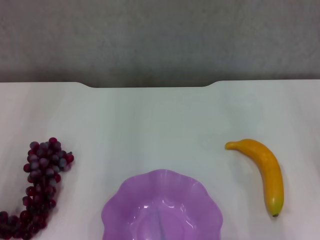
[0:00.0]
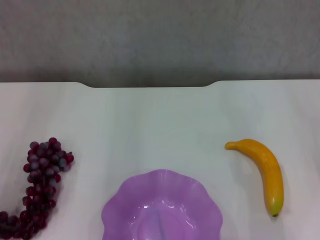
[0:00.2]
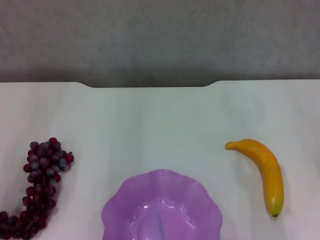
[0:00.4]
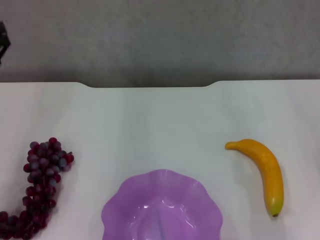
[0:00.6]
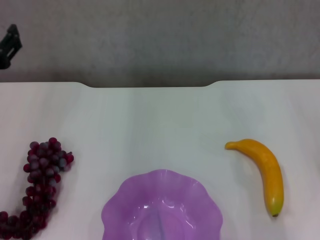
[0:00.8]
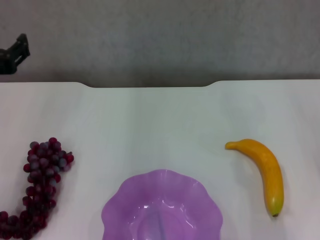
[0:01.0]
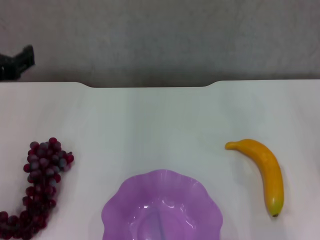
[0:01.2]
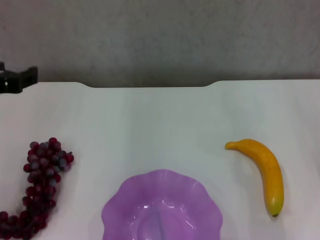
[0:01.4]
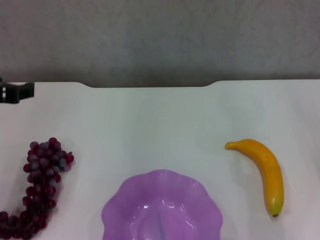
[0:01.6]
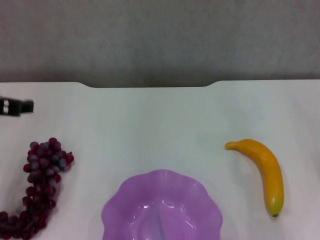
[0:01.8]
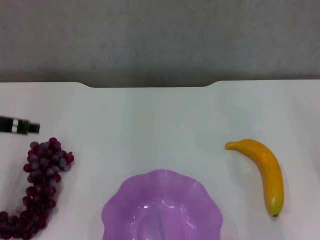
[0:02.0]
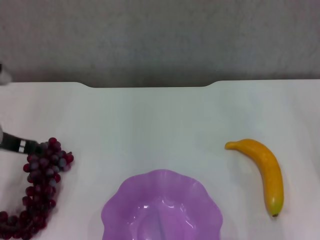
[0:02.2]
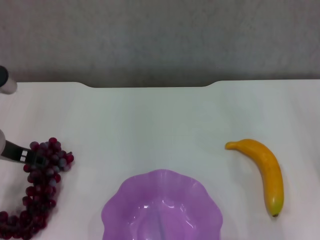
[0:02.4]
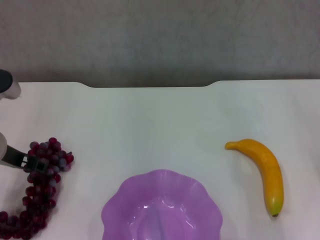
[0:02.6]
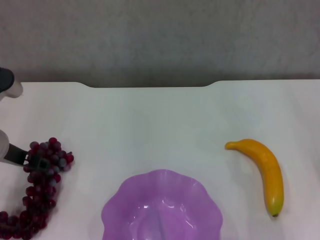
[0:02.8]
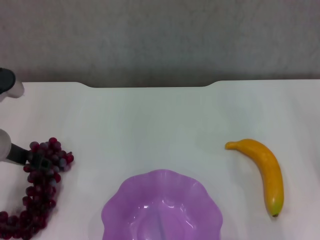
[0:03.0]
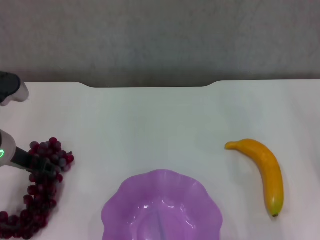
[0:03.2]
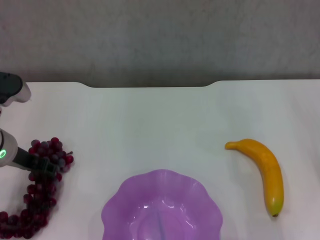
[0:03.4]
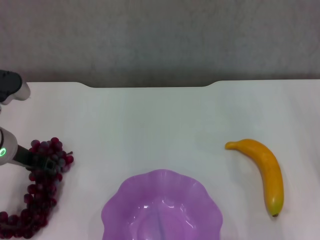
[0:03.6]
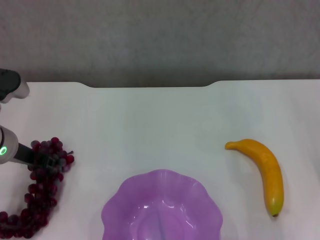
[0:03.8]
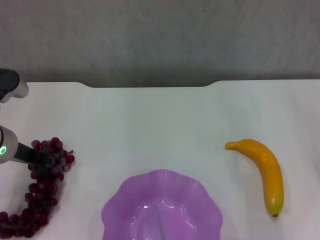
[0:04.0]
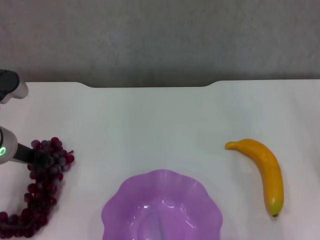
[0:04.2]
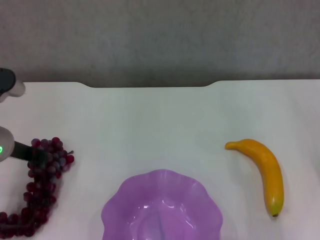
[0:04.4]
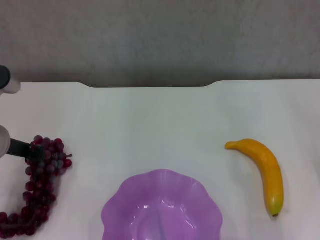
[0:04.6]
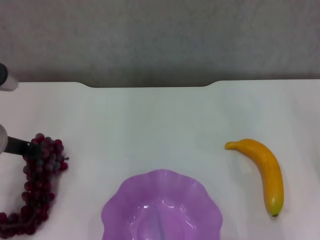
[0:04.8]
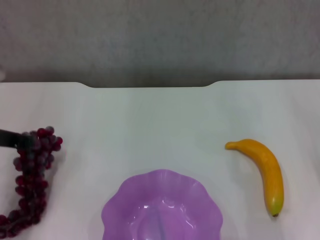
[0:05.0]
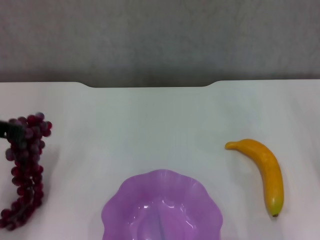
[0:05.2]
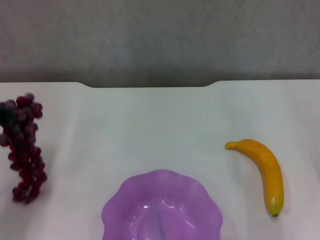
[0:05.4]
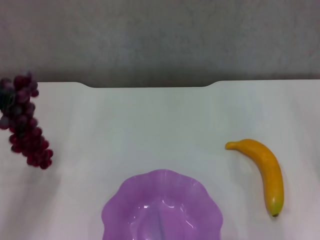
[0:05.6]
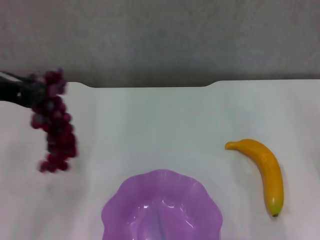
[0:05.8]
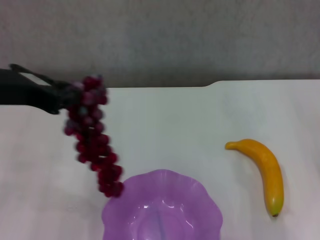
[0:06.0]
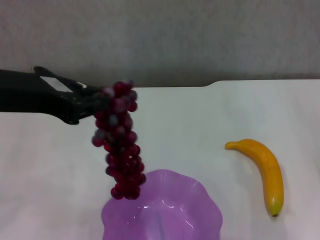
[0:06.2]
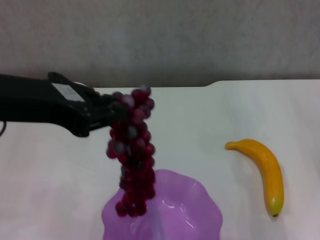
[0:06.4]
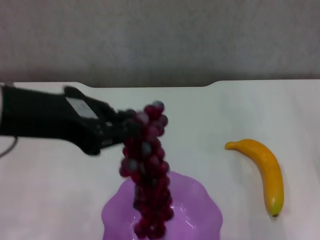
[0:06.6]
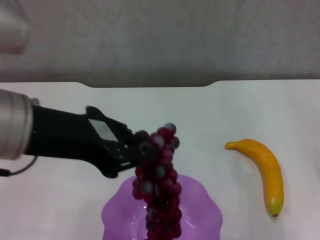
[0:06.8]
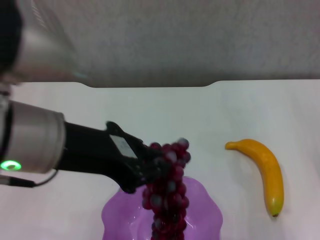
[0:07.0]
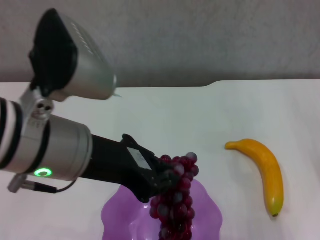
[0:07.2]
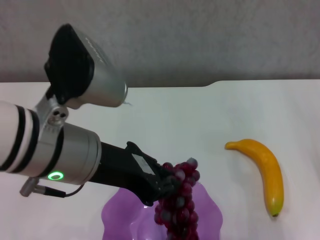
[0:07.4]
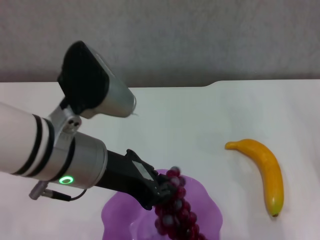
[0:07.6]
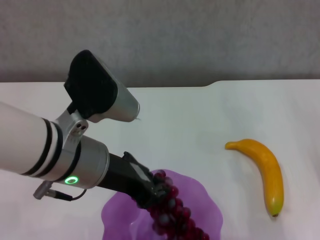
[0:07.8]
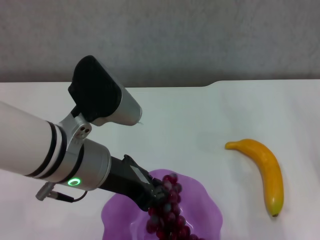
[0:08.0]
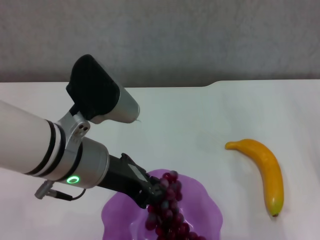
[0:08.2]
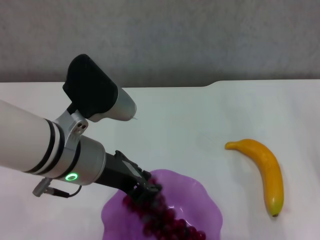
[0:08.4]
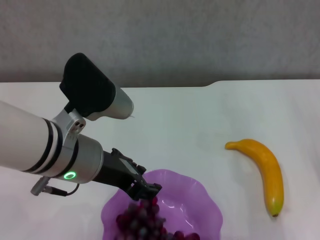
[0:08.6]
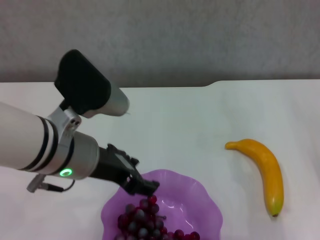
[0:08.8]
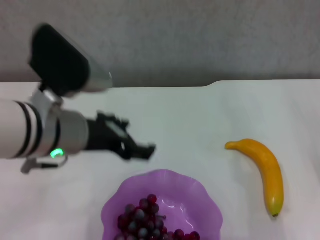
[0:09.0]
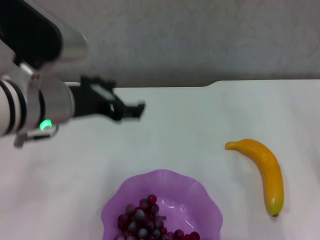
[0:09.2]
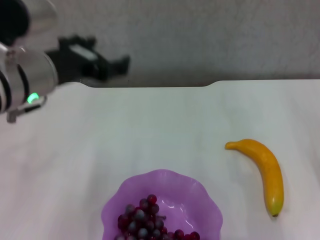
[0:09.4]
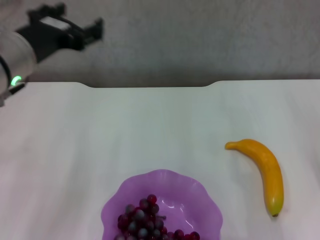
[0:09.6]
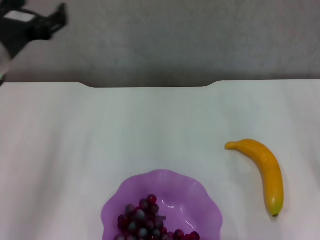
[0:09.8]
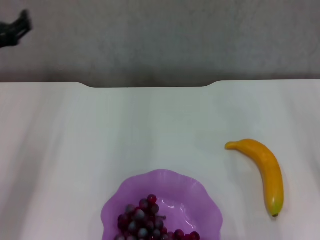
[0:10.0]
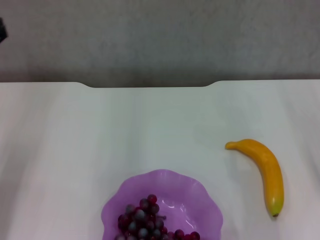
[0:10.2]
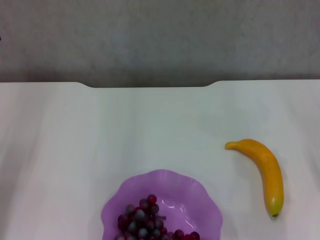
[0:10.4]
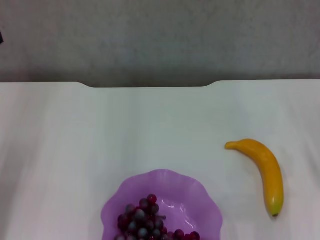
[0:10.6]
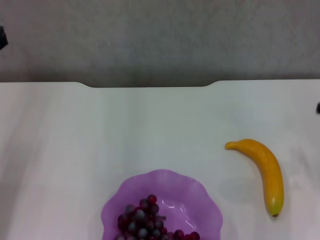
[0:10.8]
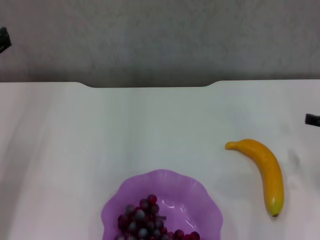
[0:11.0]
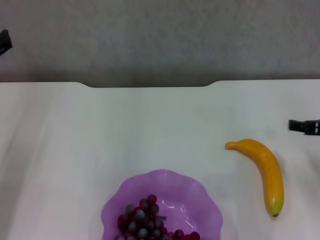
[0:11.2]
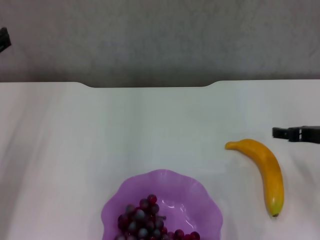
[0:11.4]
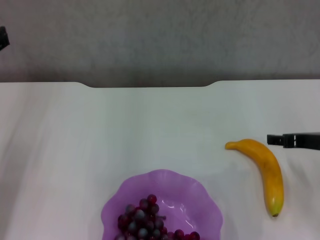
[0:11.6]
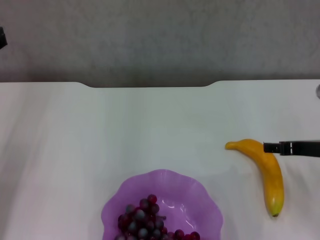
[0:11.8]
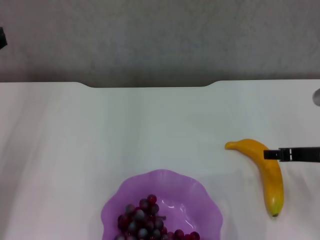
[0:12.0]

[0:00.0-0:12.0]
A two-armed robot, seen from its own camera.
Step, 0:00.0 to 0:04.2: Grasp the grape with left gripper.
Step, 0:04.6 to 0:08.8: Place the grape in the purple plate with left gripper.
0:00.0 to 0:01.6: The left gripper is displaced upward by about 5 cm.
0:01.6 to 0:03.0: The left gripper goes about 10 cm downward.
0:03.0 to 0:04.4: The left gripper closes up.
0:04.4 to 0:06.0: The left gripper moves upward and backward, roughly 15 cm.
0:06.0 to 0:07.6: The left gripper moves to the right and downward, some 10 cm.
0:07.6 to 0:09.0: The left gripper opens its fingers.
0:09.0 to 0:10.4: The left gripper heads to the left, covering roughly 15 cm.
0:10.4 to 0:12.0: The right gripper goes some 5 cm to the left.

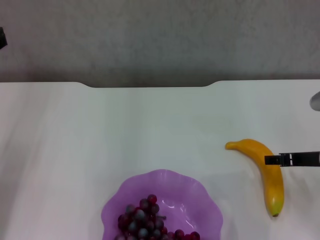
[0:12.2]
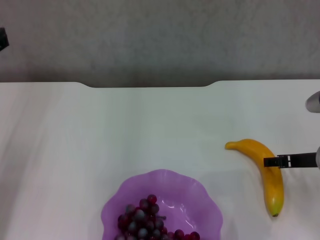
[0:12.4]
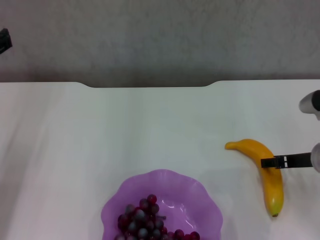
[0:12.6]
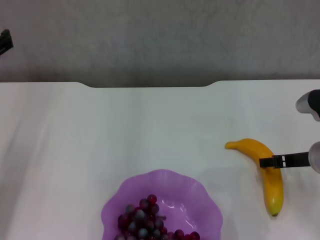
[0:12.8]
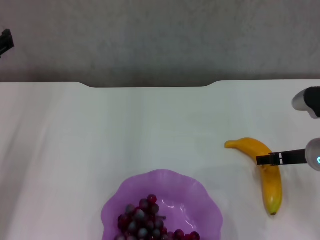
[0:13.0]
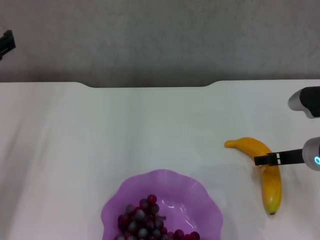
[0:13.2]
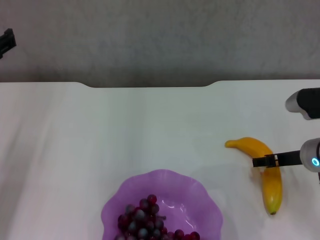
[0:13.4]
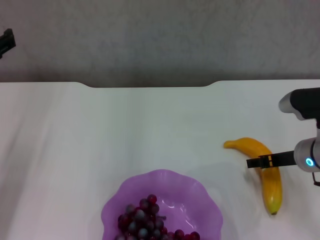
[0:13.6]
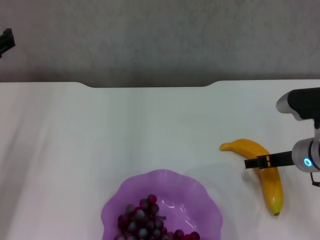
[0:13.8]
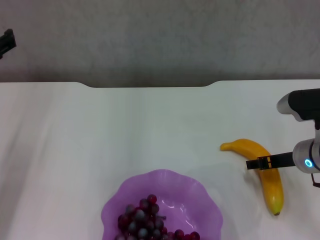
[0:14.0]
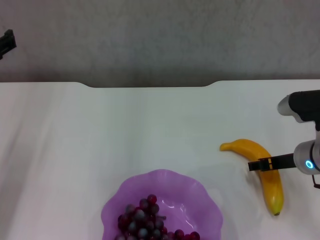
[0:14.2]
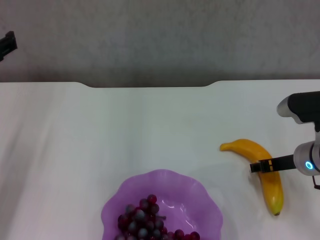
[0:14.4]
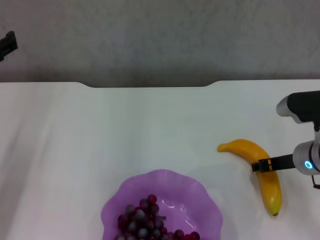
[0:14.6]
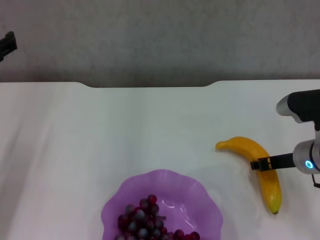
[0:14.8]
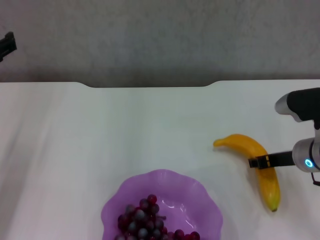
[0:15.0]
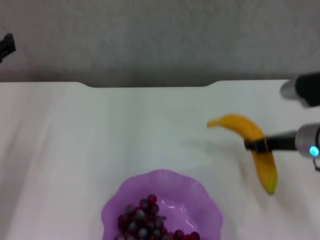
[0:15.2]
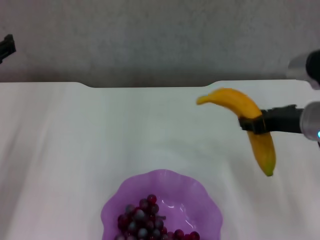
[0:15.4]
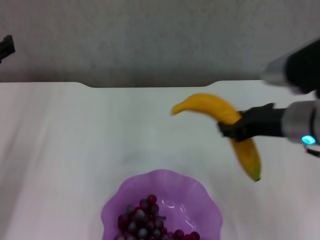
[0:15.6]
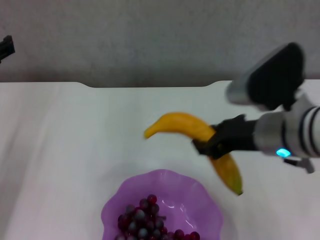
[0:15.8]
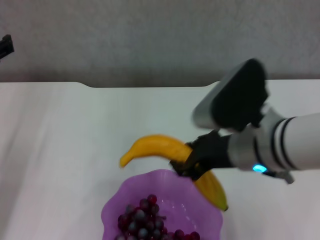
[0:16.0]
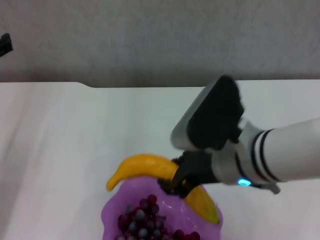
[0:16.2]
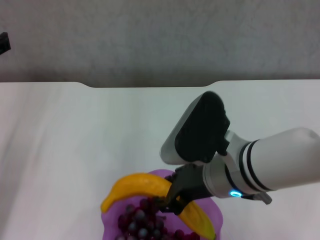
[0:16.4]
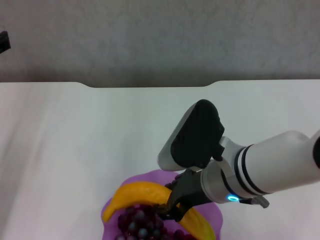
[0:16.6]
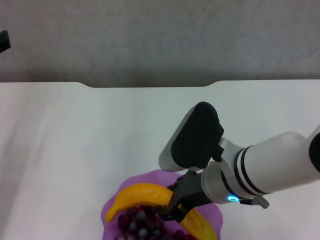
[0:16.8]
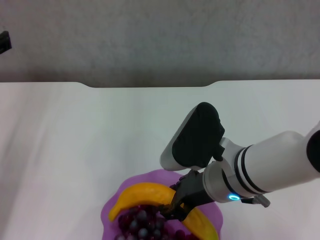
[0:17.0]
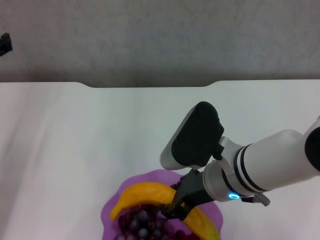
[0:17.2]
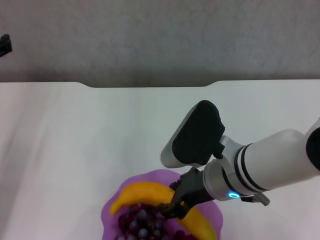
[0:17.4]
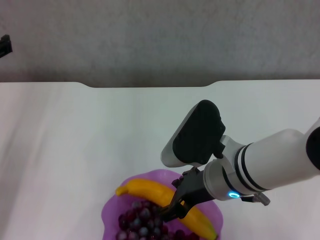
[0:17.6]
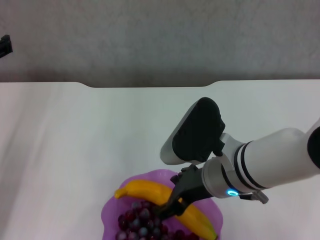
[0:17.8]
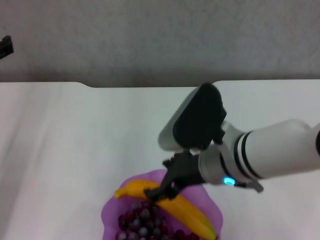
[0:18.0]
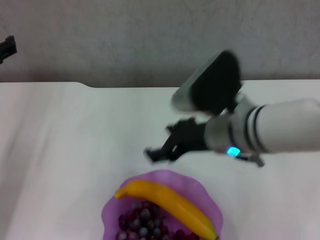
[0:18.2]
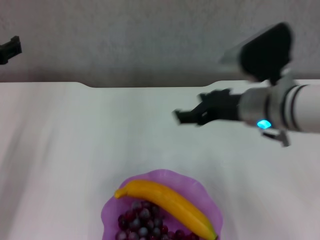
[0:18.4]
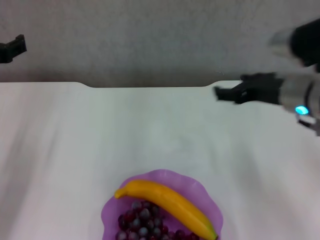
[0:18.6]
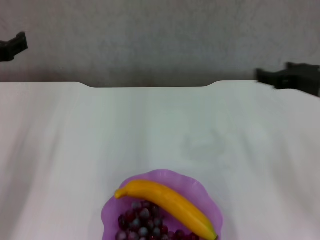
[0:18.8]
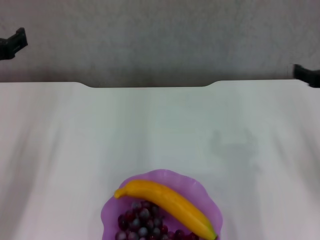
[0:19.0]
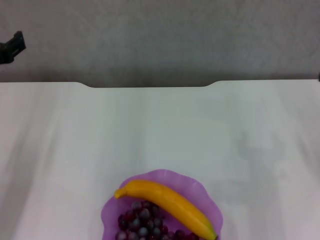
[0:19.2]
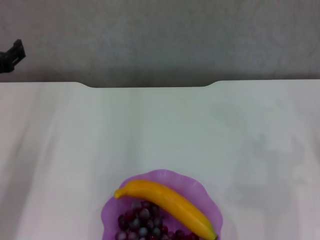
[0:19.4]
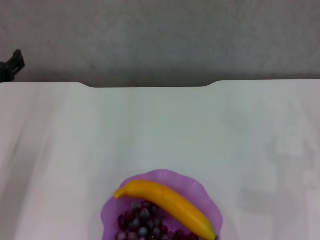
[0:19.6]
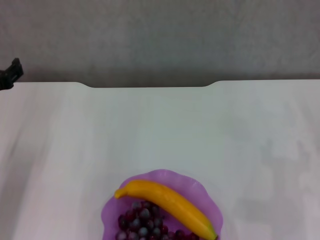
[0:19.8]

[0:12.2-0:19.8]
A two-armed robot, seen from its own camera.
Step, 0:12.2 to 0:14.4: Grasp the banana with right gripper.
Step, 0:14.6 to 0:18.0: Place the banana in the purple plate with right gripper.
0:12.2 to 0:13.8: The grippers make only small movements.
0:13.8 to 0:15.2: The right gripper closes.
0:15.2 to 0:16.8: The right gripper heads to the left and backward, covering approximately 15 cm.
0:16.8 to 0:18.2: The right gripper changes place by about 5 cm, and opens up.
0:18.2 to 0:19.8: The right gripper is displaced to the right by roughly 25 cm, while the left gripper heads downward, covering about 5 cm.

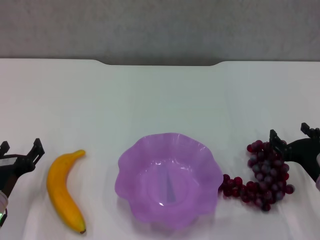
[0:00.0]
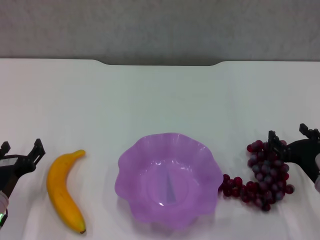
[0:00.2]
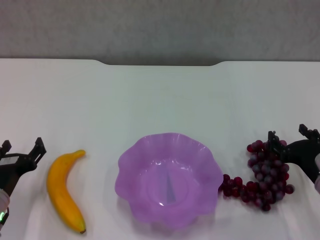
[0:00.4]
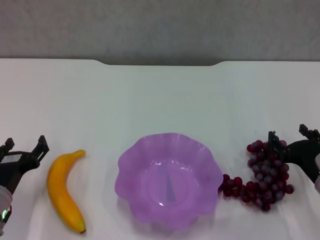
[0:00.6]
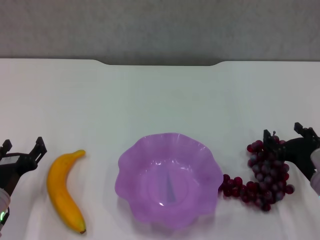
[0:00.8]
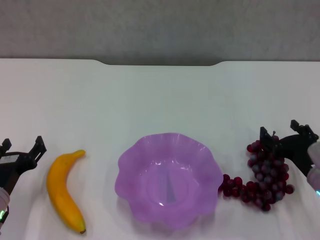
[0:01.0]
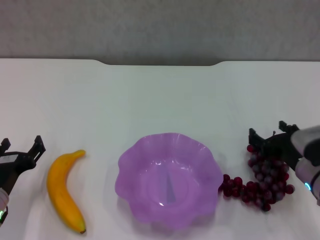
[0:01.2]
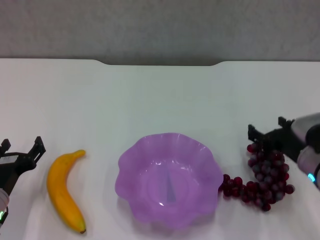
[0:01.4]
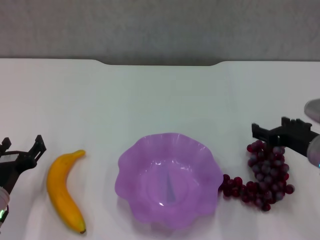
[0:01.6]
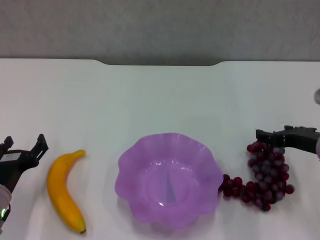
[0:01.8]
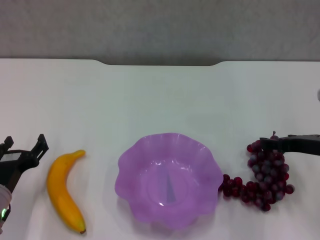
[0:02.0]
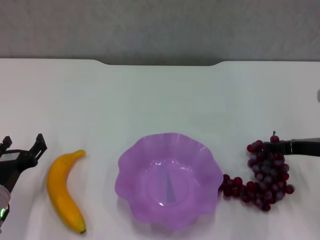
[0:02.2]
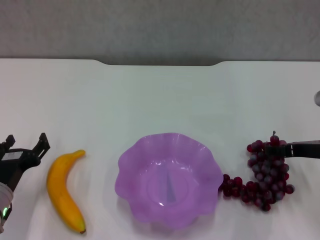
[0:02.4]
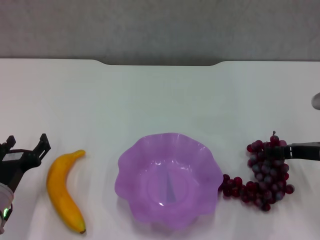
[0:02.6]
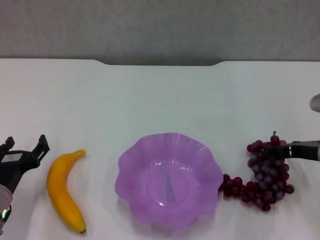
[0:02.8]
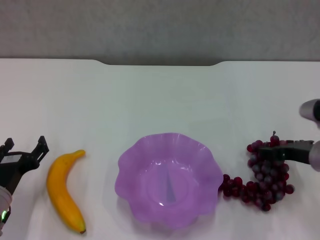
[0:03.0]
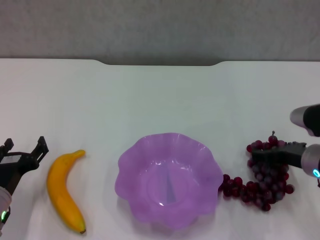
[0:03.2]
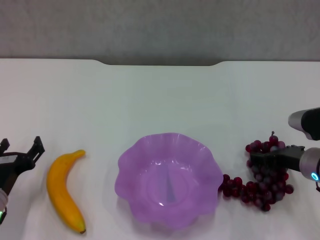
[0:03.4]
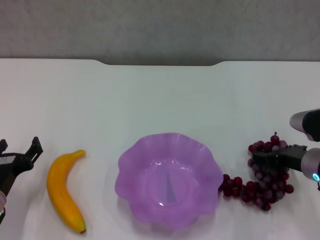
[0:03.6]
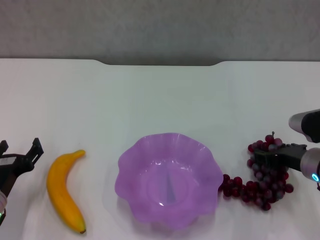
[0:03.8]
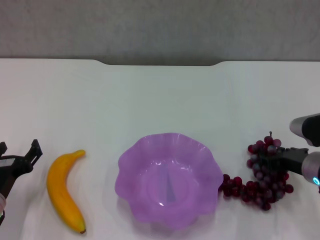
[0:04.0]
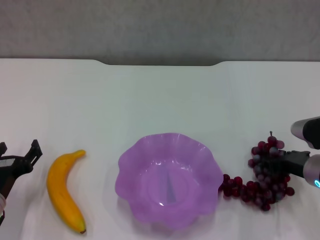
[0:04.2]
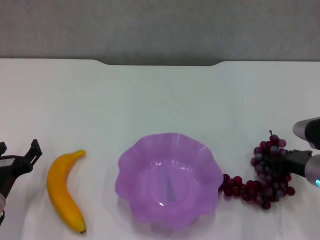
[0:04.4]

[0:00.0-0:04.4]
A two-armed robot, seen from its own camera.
0:00.0 to 0:01.4: The right gripper moves some 5 cm.
0:03.0 to 0:04.4: The right gripper closes.
